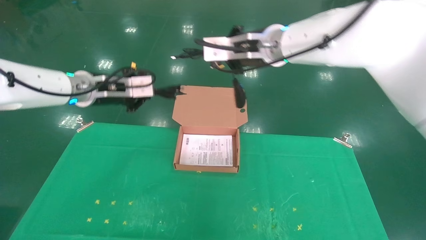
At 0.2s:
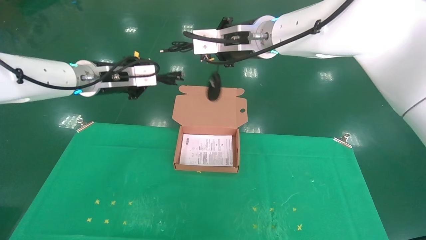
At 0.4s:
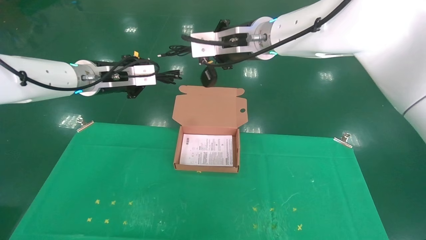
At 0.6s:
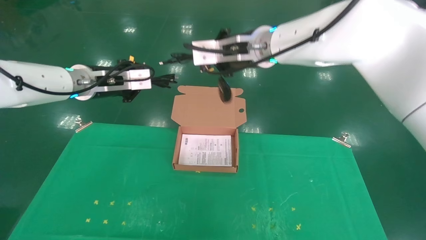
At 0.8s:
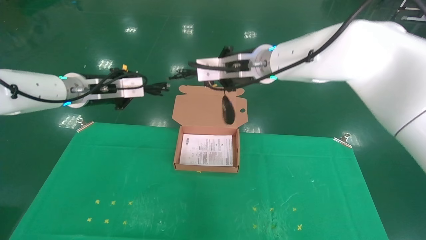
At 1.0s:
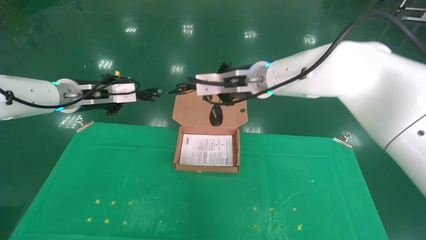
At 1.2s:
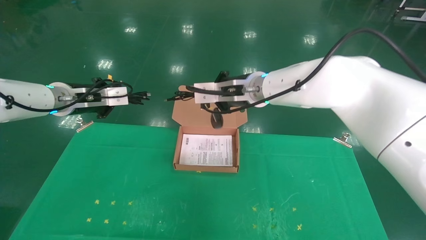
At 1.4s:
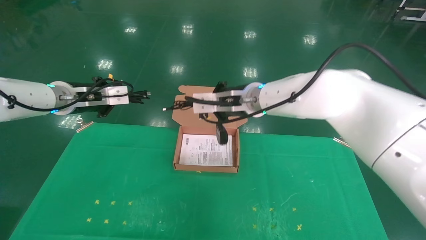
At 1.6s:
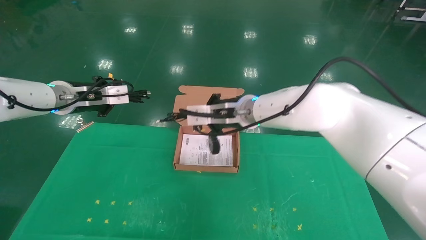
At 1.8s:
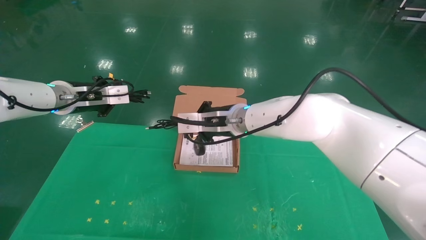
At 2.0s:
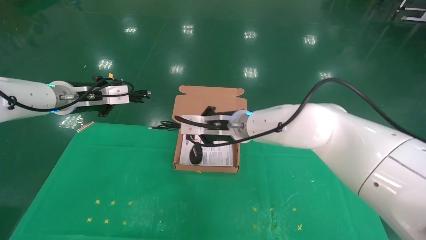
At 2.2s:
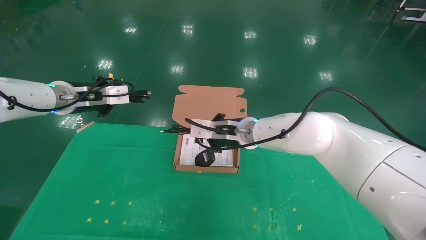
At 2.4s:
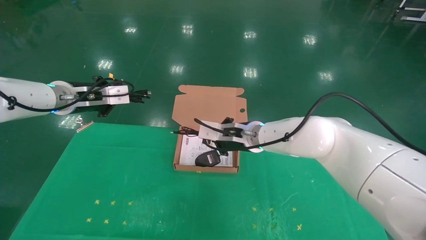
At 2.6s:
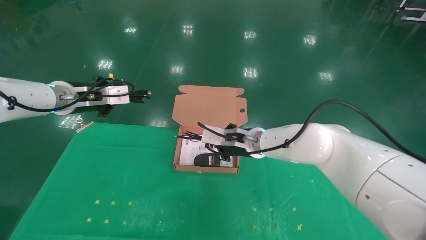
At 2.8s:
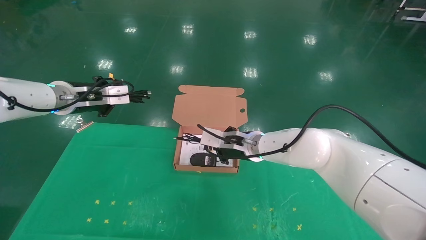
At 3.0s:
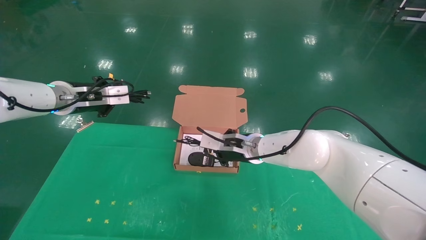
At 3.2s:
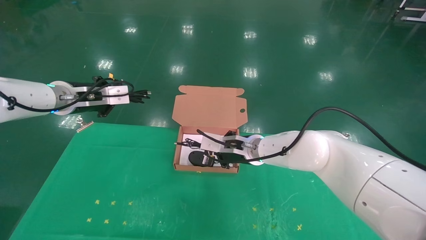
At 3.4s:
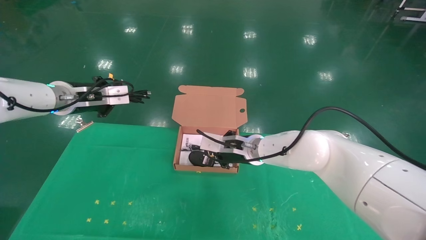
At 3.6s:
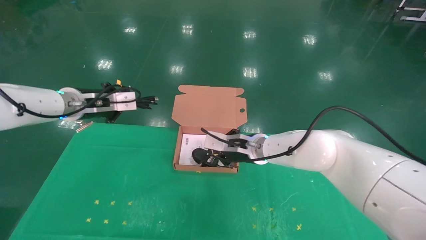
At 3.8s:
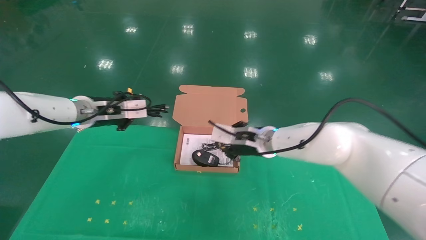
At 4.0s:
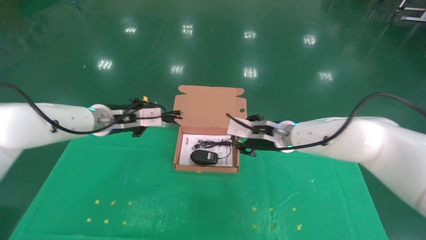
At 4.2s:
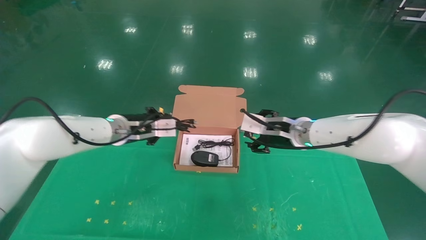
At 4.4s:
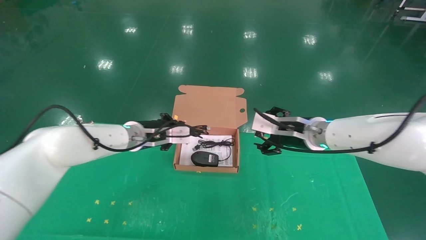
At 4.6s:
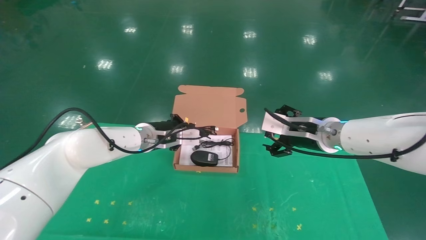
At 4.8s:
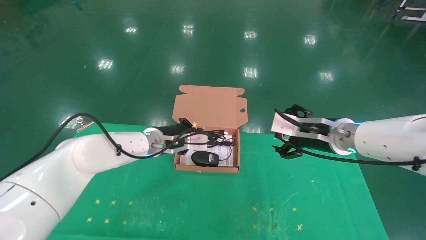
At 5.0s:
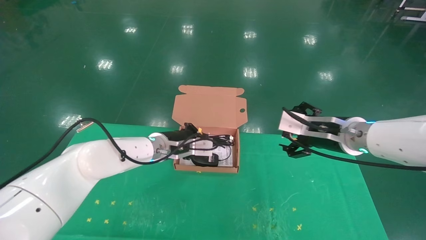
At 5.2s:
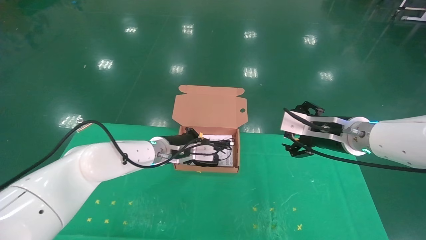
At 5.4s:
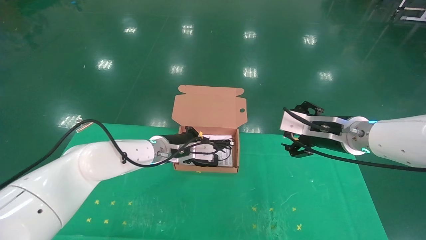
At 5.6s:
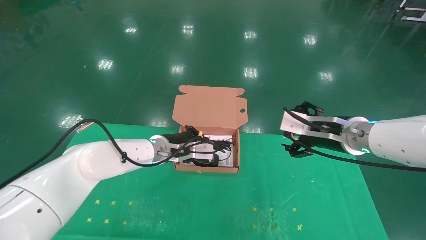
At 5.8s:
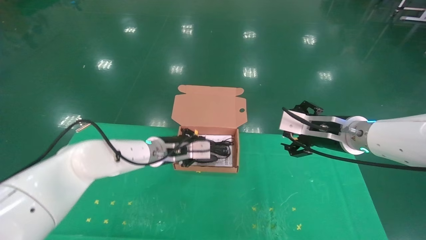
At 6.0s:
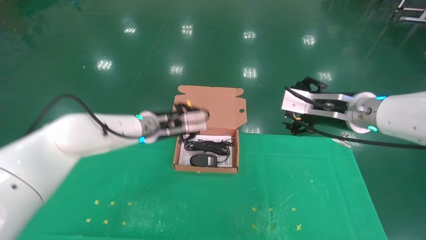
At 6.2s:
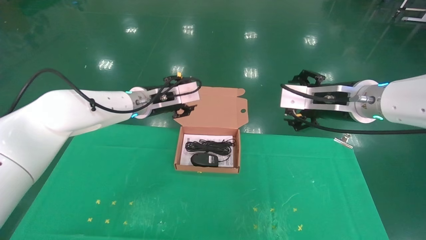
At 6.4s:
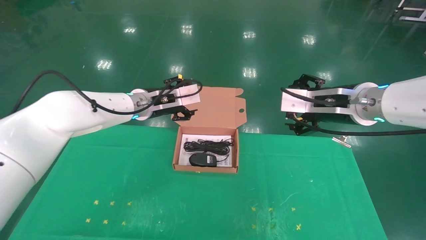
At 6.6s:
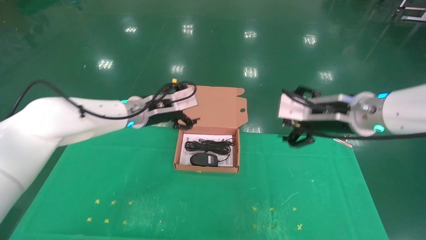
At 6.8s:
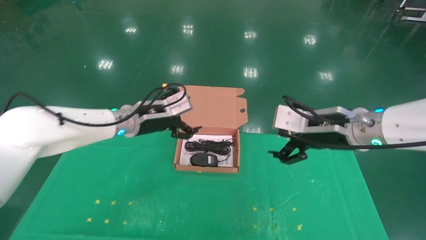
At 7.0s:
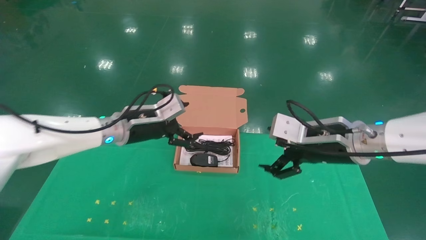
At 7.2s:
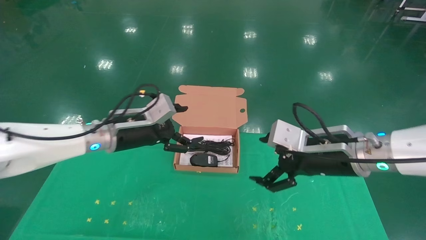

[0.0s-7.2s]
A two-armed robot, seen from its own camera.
Task of the whole recording: grasp data cable left put into box grasp mouse right put into box.
Step, 0.0s to 5.4s: Place the mouse and power cord into the box.
0.0s to 1.4s: The left gripper travels to the left by approximately 5 cm. Meanwhile the right gripper shifts roughly 10 cm downward.
1.4s to 2.8s: The right gripper travels downward by about 10 cm.
2.8s to 4.4s: The right gripper moves to the right, approximately 15 cm, and opens up. The left gripper is displaced to the right and downward by approximately 20 cm.
4.4s to 5.8s: The right gripper shifts by some 5 cm.
5.8s to 7.2s: The right gripper ends up about 5 cm from where it was. The left gripper goes some 10 cm to the left and backward, and opens its fingers.

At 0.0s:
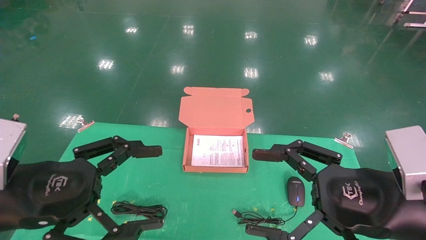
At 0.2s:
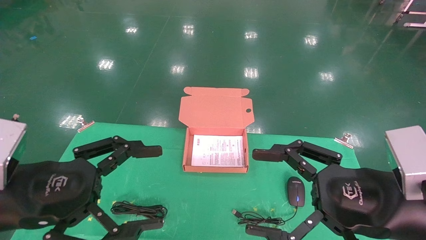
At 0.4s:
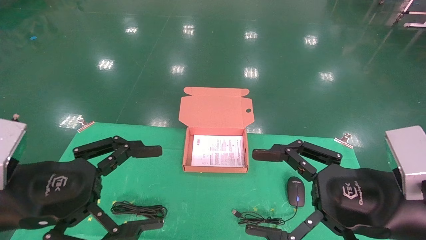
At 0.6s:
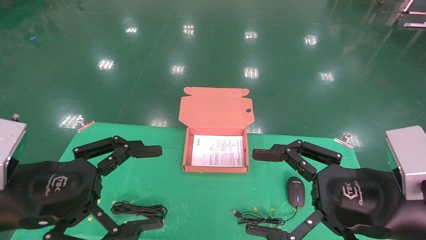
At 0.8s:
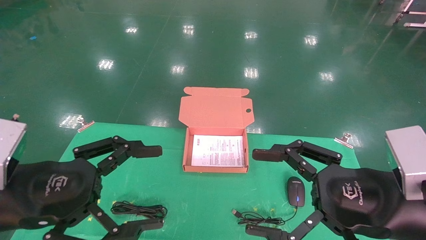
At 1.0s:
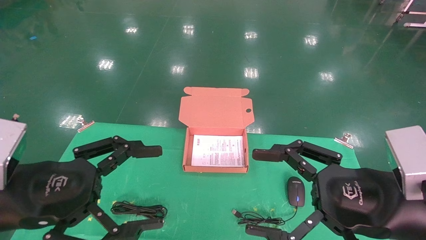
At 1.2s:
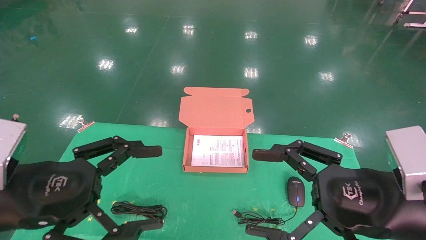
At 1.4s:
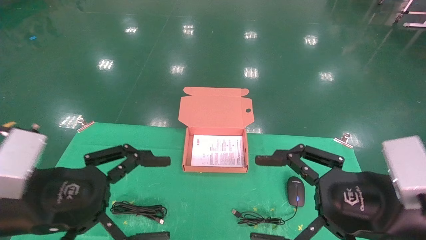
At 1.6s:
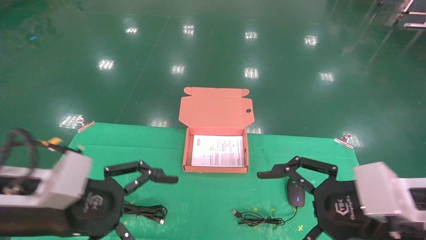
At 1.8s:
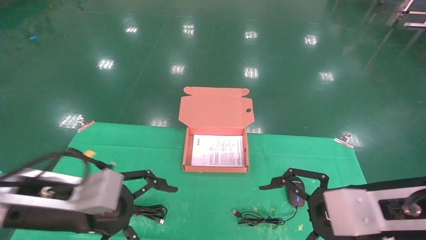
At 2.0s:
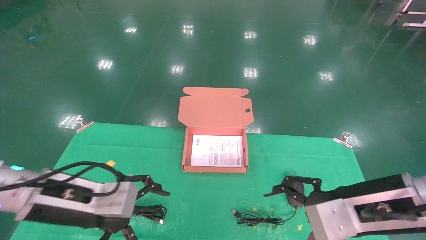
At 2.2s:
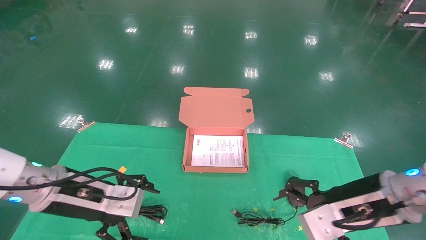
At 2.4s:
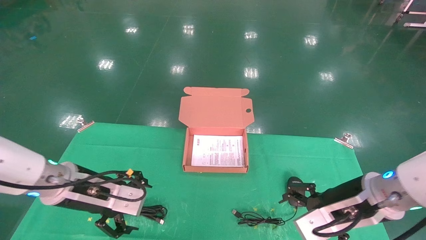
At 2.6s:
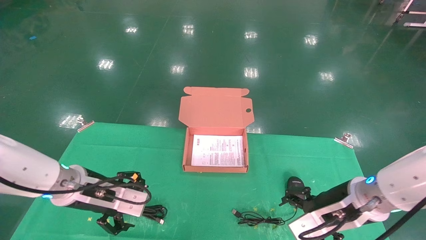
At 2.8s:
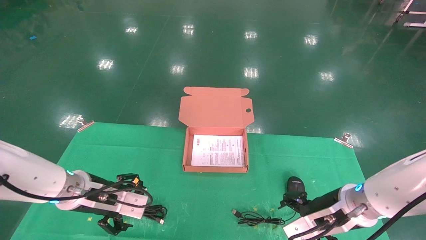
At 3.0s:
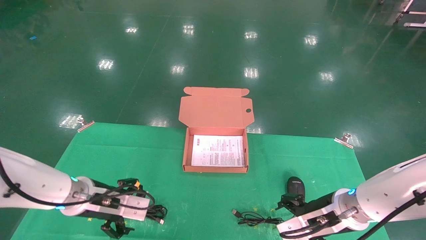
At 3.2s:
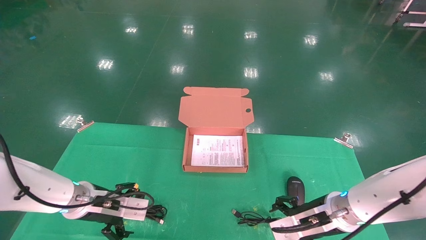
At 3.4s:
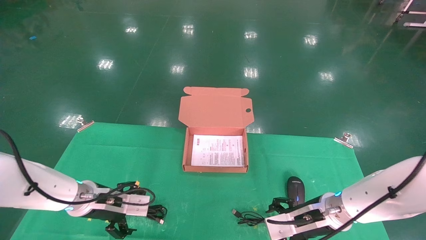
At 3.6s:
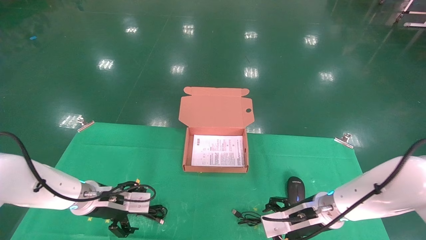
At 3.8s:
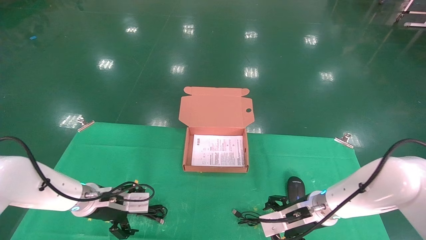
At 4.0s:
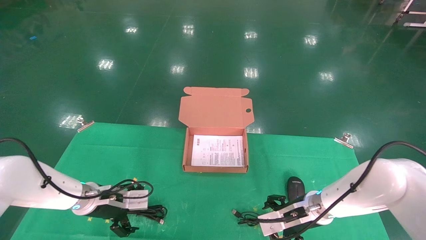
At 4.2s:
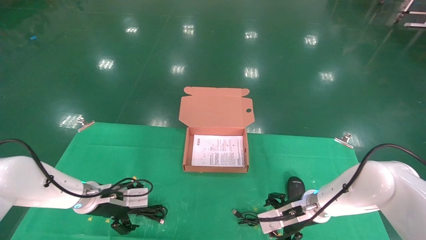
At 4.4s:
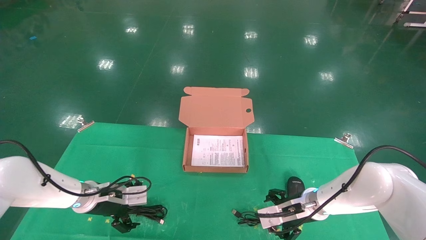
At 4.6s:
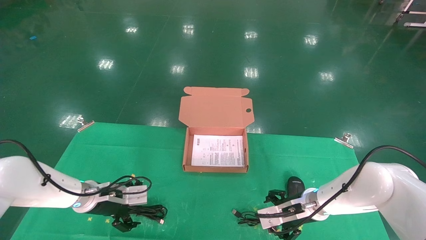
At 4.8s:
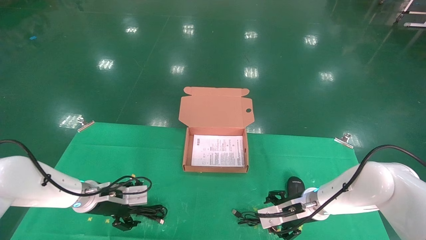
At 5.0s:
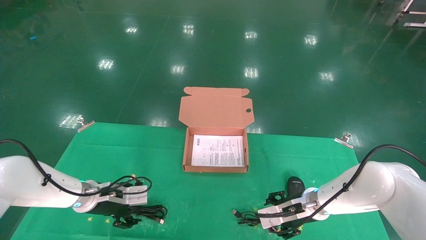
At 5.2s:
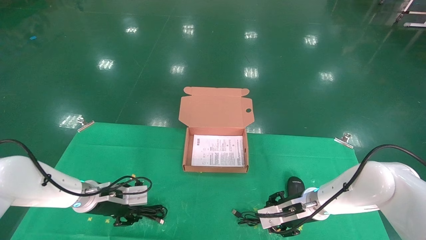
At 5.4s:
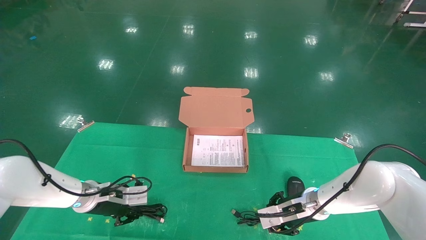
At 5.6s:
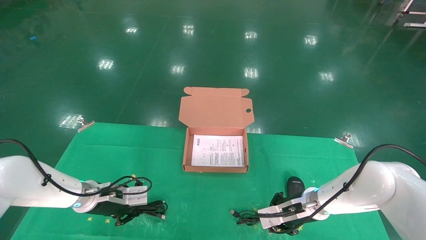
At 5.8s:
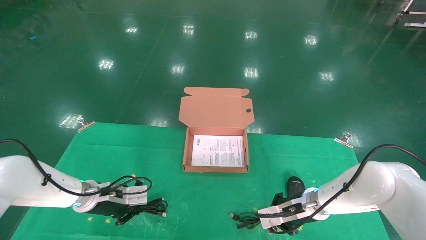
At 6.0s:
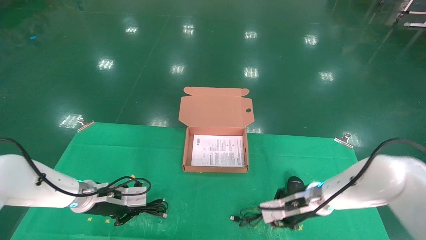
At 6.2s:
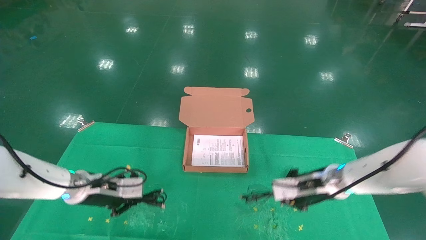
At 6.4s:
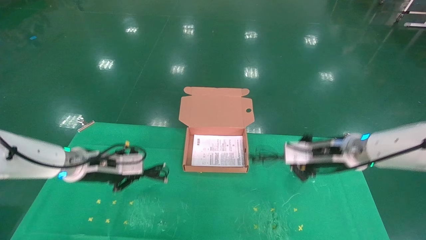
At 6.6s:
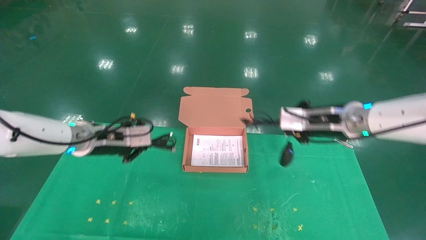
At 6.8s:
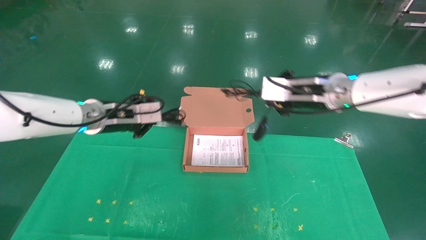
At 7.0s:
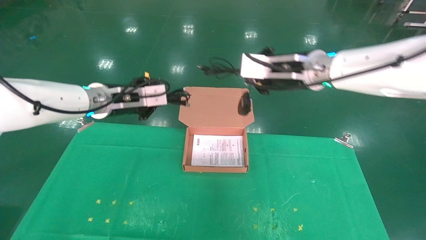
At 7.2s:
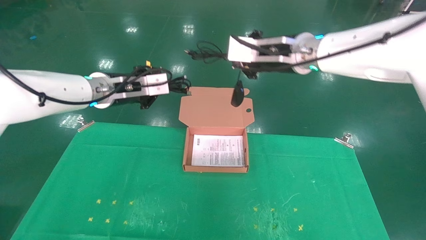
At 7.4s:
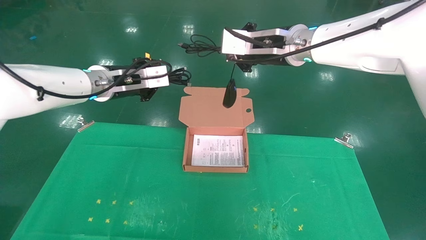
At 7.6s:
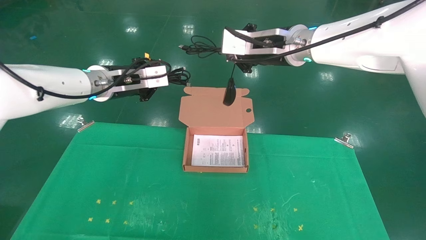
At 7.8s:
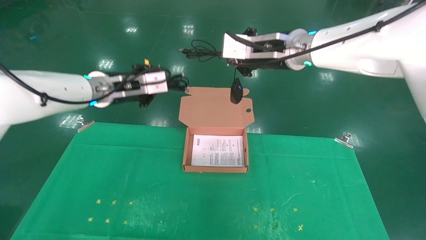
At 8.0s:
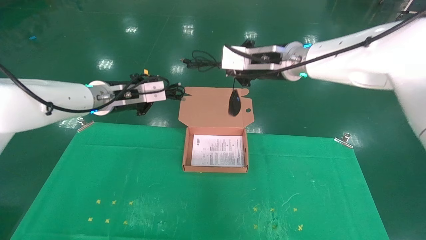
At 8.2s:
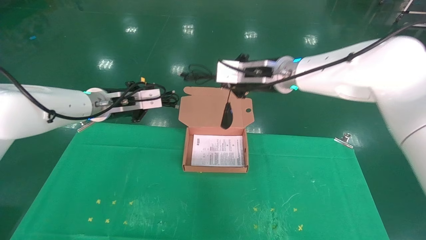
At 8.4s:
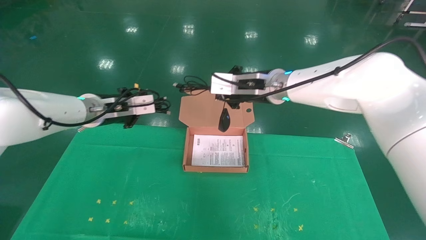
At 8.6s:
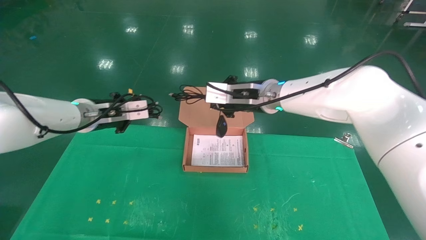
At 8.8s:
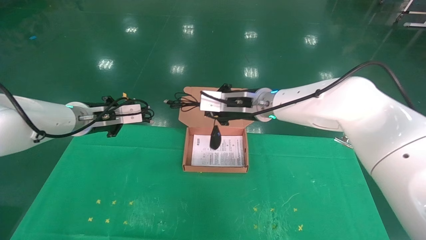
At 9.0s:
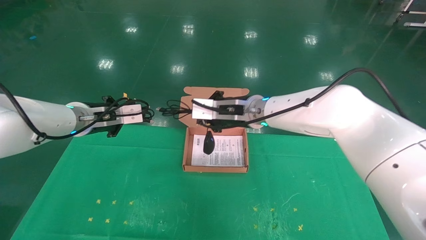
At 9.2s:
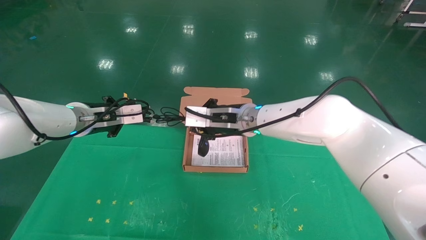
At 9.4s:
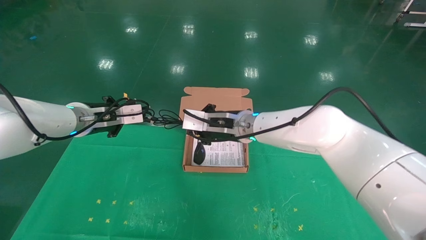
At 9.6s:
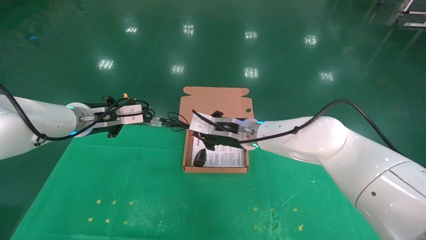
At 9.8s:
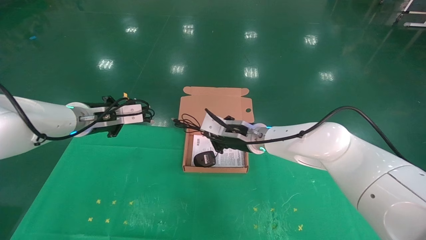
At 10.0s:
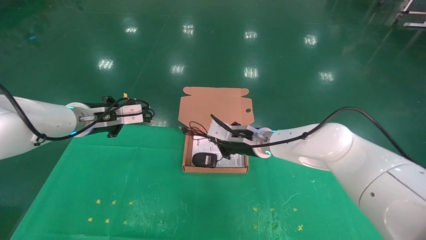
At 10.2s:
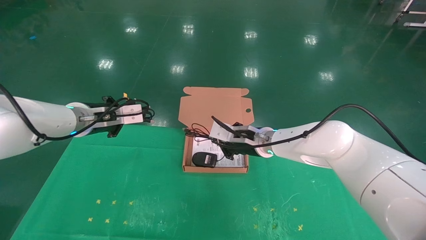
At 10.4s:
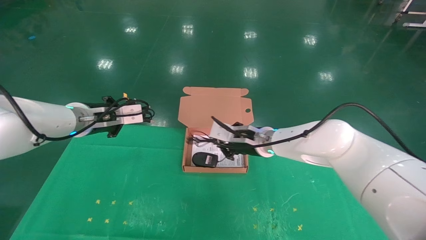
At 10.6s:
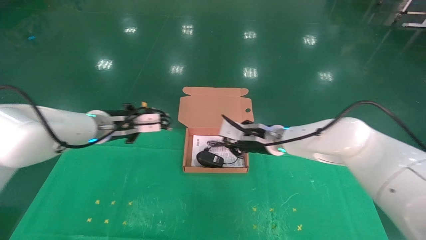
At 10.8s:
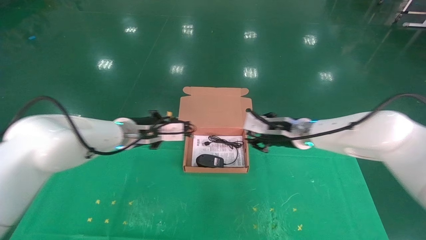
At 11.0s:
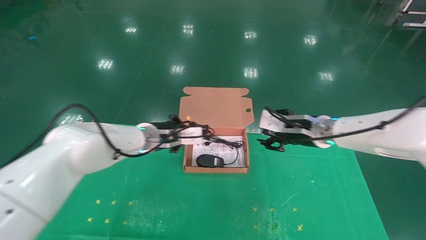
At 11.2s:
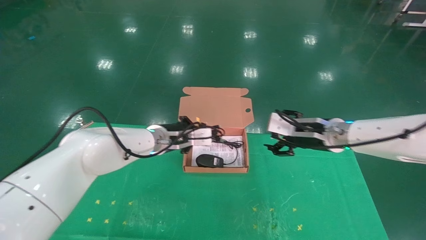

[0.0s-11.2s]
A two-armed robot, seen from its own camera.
Task of the whole recording: grasp data cable left put into box grasp mouse right put into box.
Step, 1.0s to 6.2s: Grab and pick up both the mouse and power cord from the accessory packaging area at the same time.
1.6s to 3.2s: Both grippers travel together forward and downward, approximately 20 cm.
3.2s to 4.8s: The left gripper shifts approximately 5 cm forward, while the right gripper goes approximately 10 cm forward and downward.
4.8s to 6.4s: Both grippers move upward, approximately 10 cm. The left gripper closes. Meanwhile the right gripper closes.
6.4s to 8.0s: The right gripper shifts roughly 20 cm upward and to the left. Meanwhile the left gripper goes roughly 15 cm upward.
8.0s to 9.6s: The left gripper travels downward by roughly 5 cm, while the right gripper goes about 20 cm downward and to the left.
9.6s to 11.2s: The right gripper shifts approximately 20 cm to the right, and opens. The left gripper is displaced to the right and downward by roughly 15 cm.
